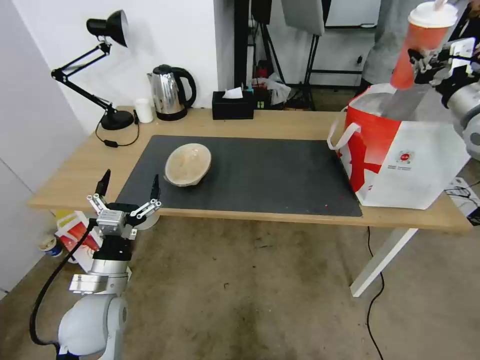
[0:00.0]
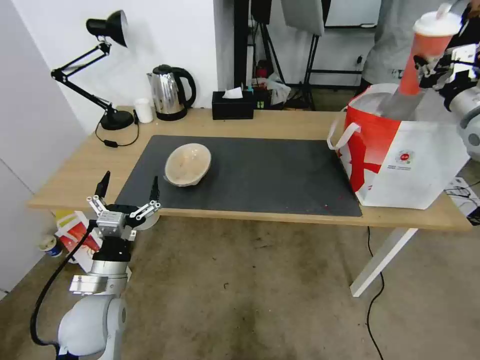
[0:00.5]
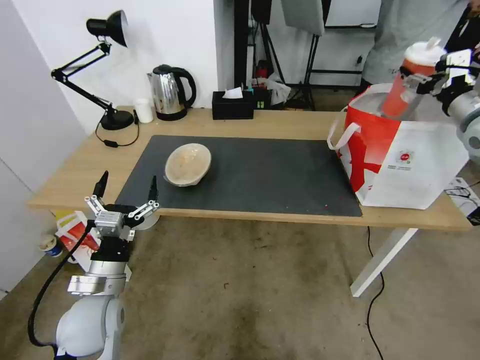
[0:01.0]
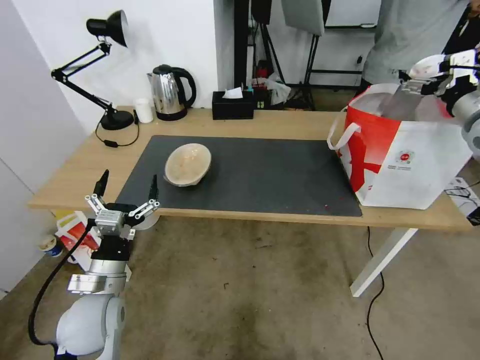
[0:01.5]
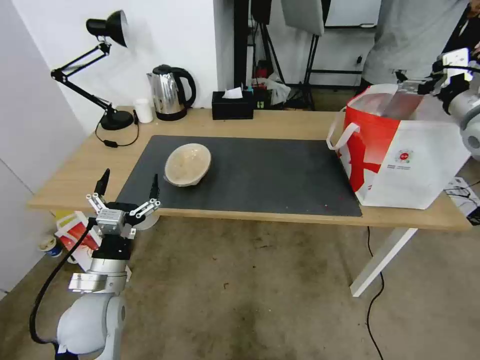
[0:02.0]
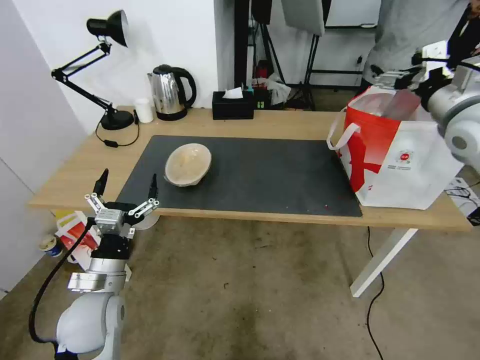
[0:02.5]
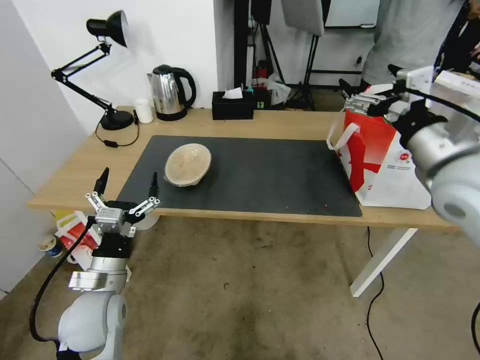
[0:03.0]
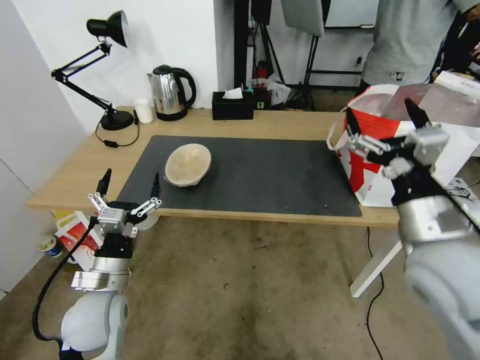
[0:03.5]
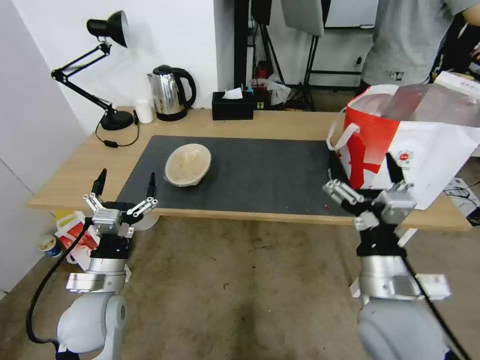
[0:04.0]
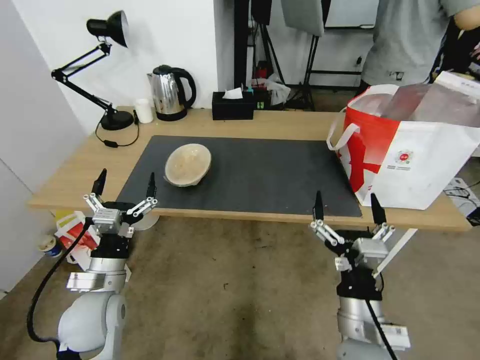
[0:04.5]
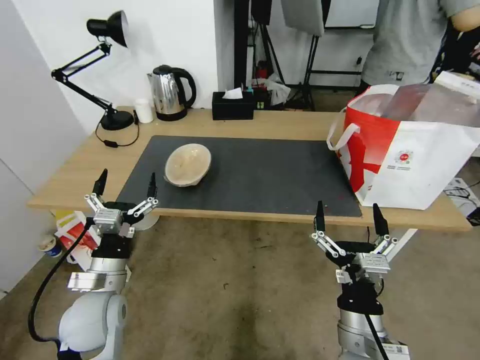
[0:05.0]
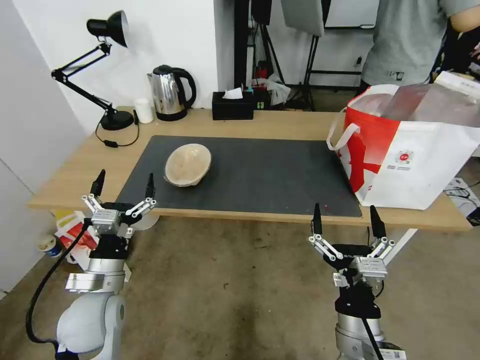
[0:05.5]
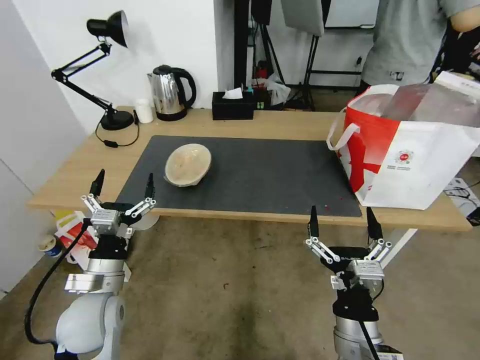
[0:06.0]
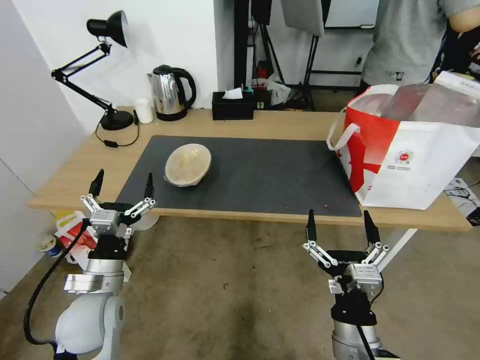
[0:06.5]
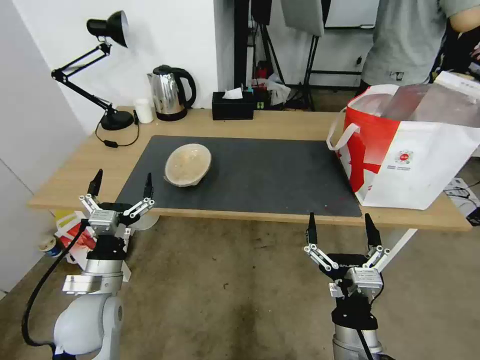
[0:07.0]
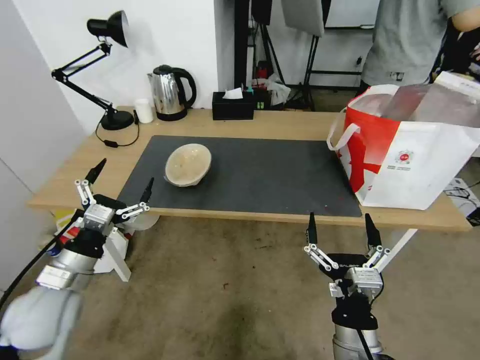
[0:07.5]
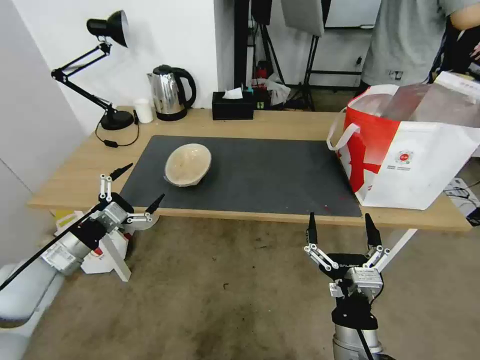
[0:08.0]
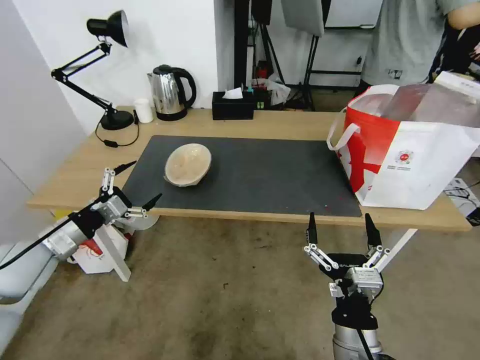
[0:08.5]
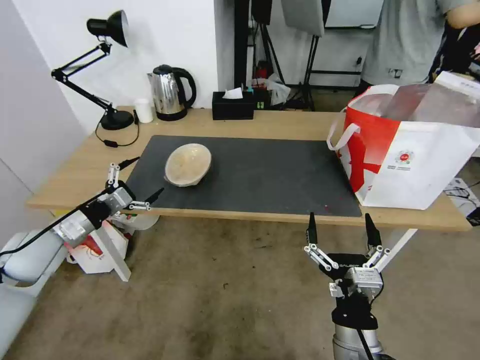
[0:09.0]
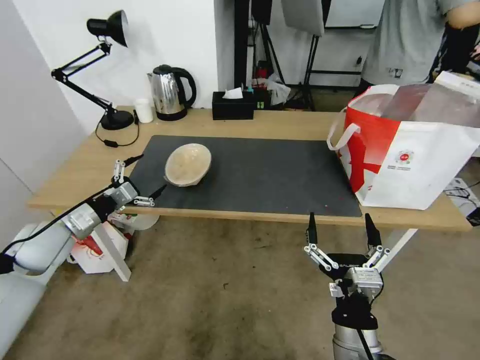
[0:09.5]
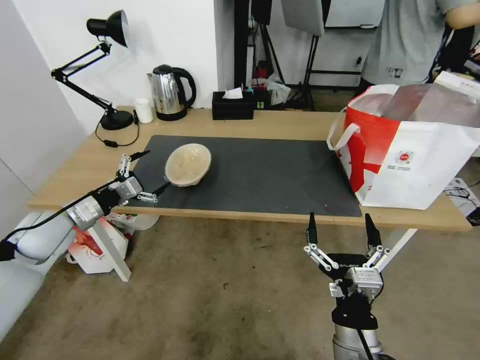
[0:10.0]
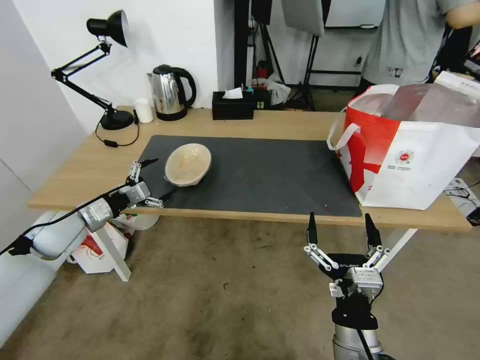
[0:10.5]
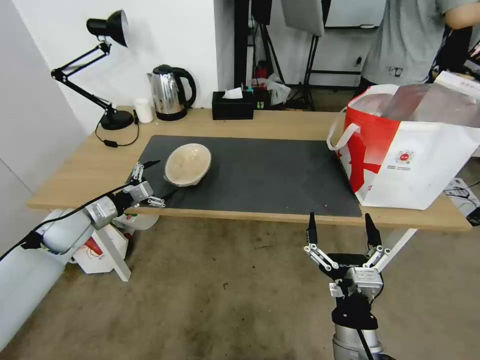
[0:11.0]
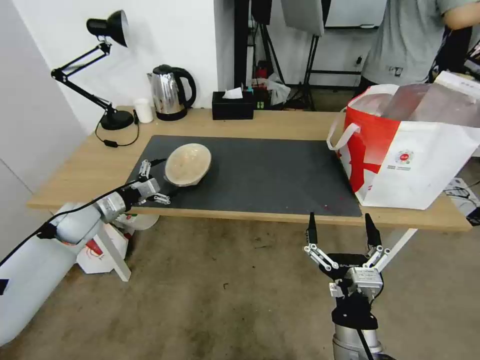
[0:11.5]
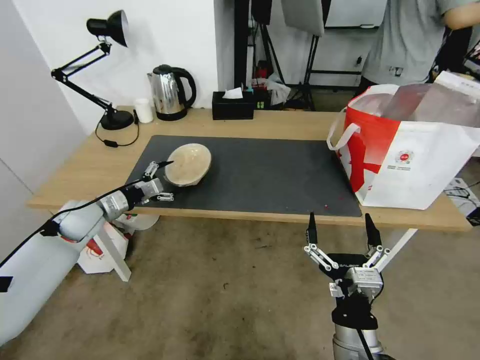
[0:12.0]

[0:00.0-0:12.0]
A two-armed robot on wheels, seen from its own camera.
Task of the whole recording: Pick up the trash from the table and place it into the takeout bag.
0.0 to 2.0 s: The right gripper opens up.
2.0 to 4.0 s: The right gripper goes some 40 cm backward, to the left and downward.
4.0 to 6.0 s: The right gripper moves downward and backward, some 10 cm.
6.0 to 8.0 s: The left gripper shifts about 10 cm to the left and upward.
8.0 to 10.0 s: The left gripper heads forward, covering about 10 cm.
10.0 to 12.0 s: The left gripper moves forward, approximately 5 cm.

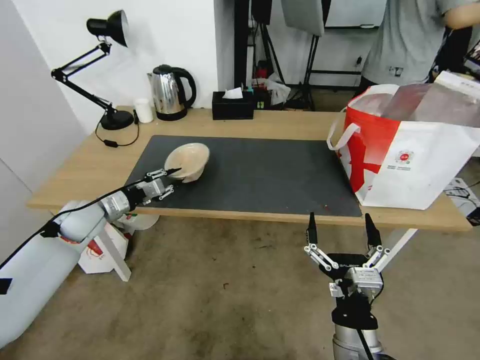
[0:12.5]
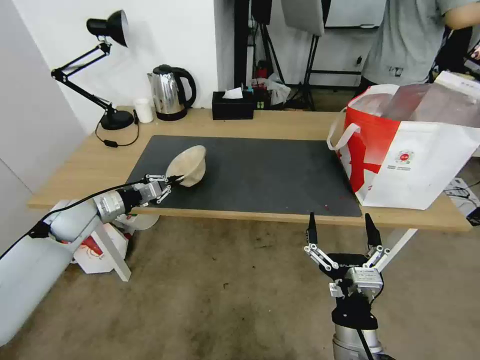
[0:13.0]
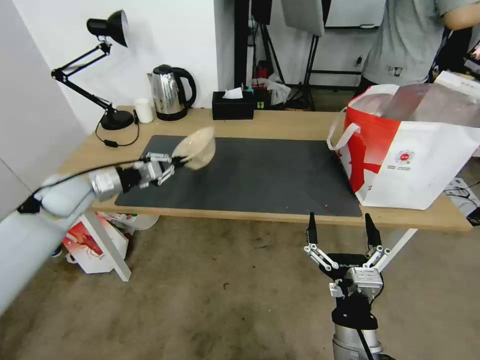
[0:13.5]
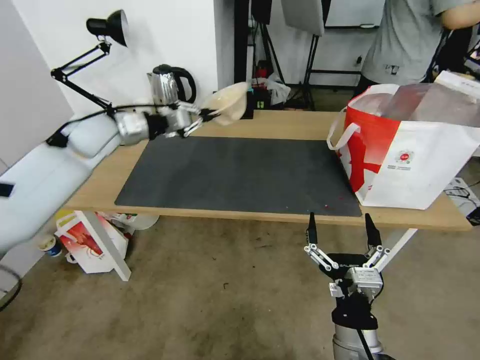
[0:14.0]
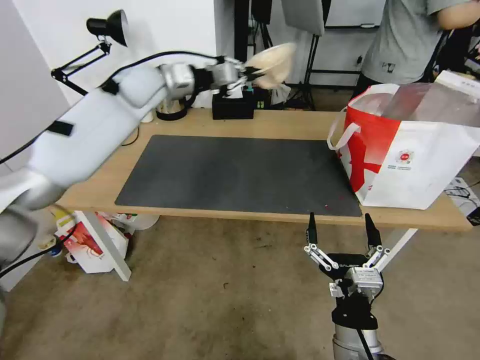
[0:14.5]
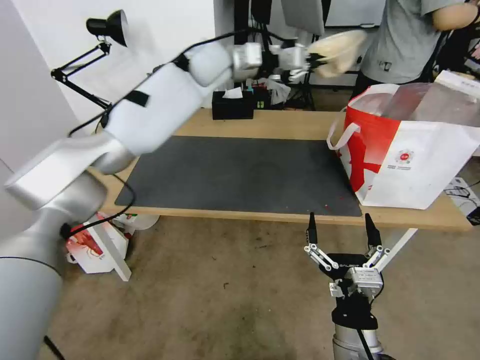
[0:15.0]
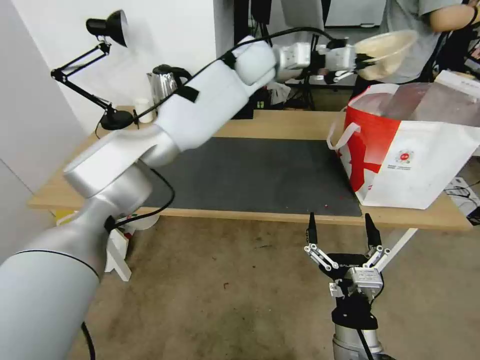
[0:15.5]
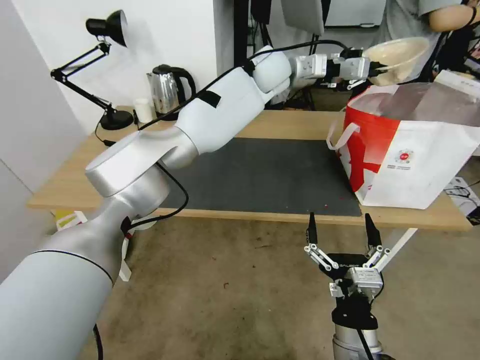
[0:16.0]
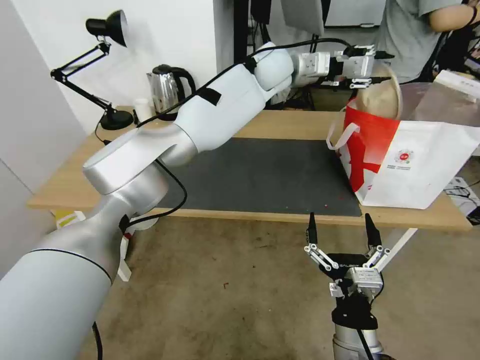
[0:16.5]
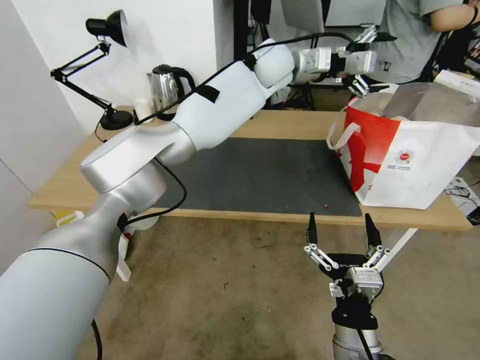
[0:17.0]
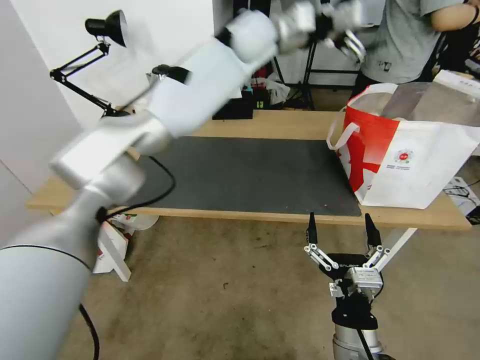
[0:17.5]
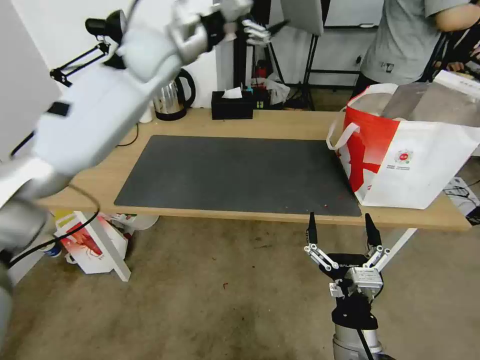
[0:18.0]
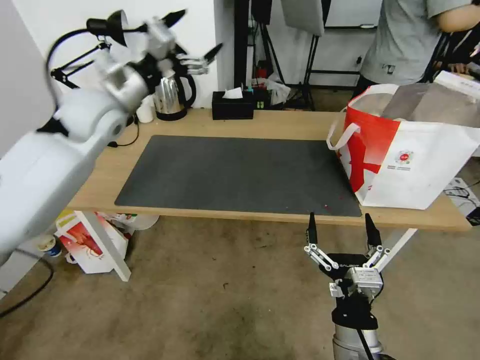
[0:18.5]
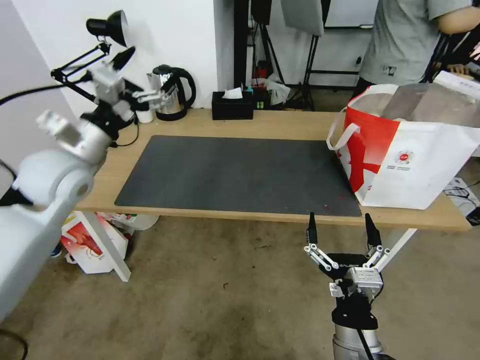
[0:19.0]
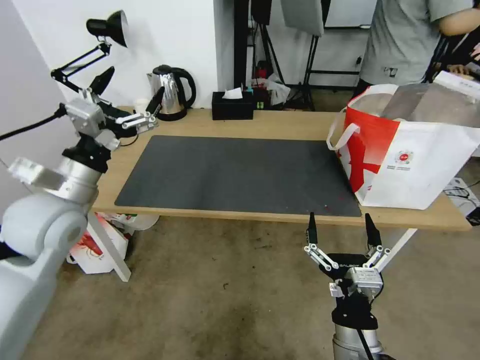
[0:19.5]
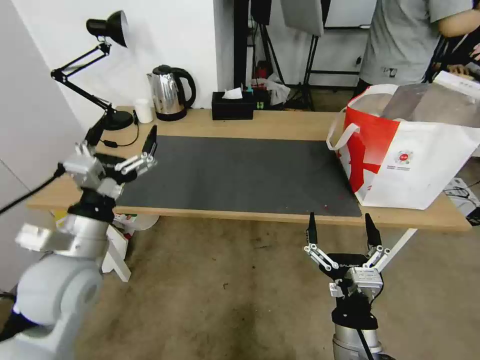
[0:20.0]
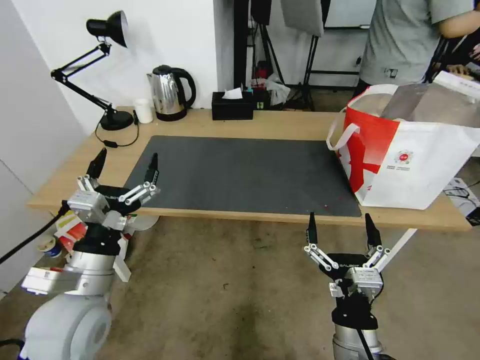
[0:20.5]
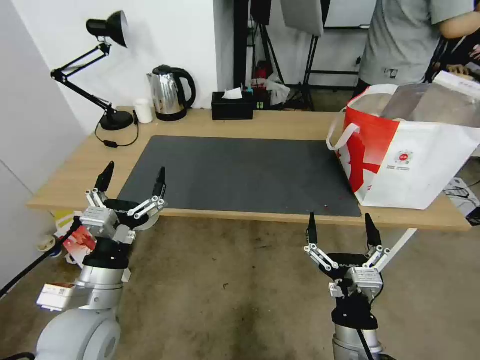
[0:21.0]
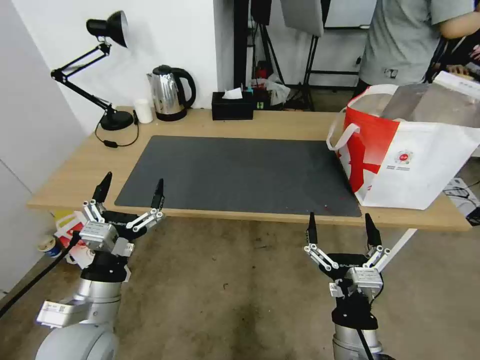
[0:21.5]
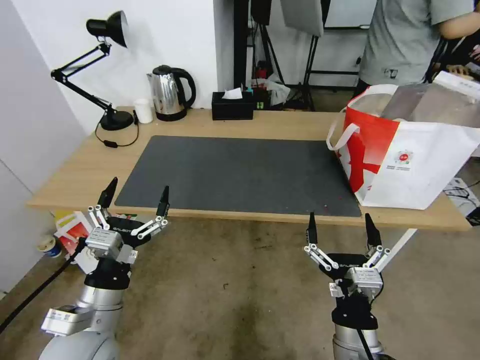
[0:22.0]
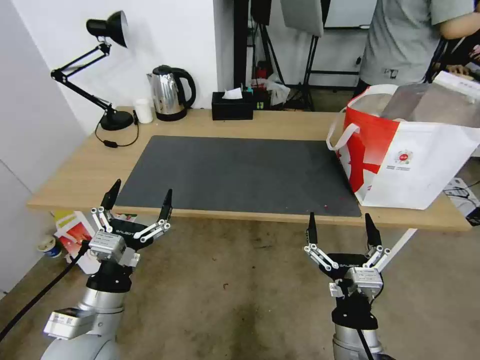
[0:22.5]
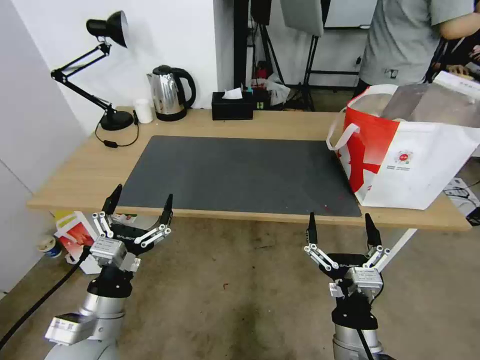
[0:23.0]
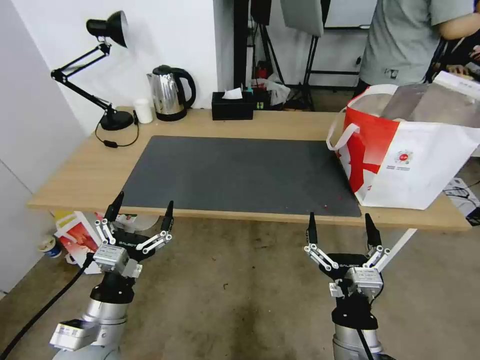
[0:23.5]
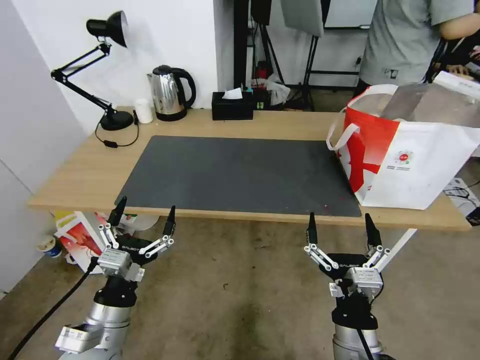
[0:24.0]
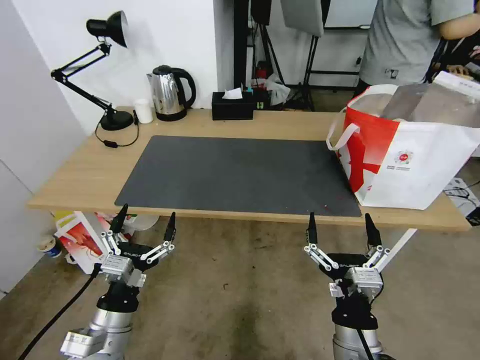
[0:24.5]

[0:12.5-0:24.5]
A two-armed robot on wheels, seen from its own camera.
Task of the whole recording: Pick up the trash from the table and place it into the takeout bag.
12.5 to 14.5 s: The left gripper shifts approximately 35 cm upward, to the right and forward.
14.5 to 16.5 s: The left gripper moves to the right, approximately 25 cm, and opens up.
16.5 to 18.5 s: The left gripper moves to the left and backward, approximately 35 cm, and opens its fingers.
18.5 to 20.5 s: The left gripper travels backward and downward by some 35 cm.
20.5 to 22.5 s: The left gripper heads downward, covering about 5 cm.
22.5 to 24.5 s: The left gripper moves approximately 5 cm.

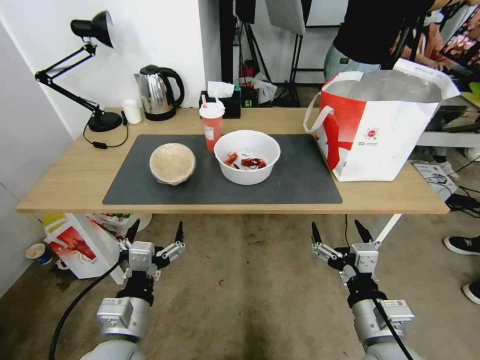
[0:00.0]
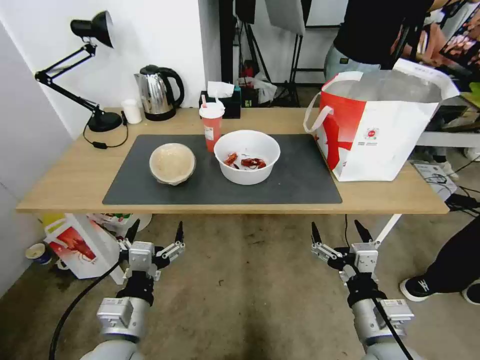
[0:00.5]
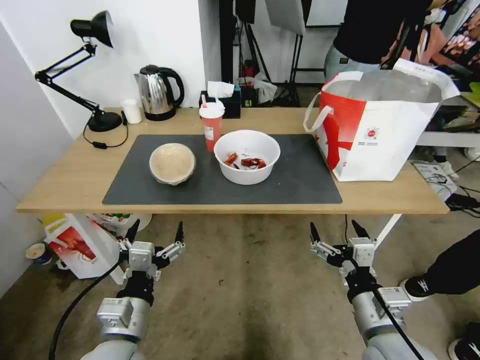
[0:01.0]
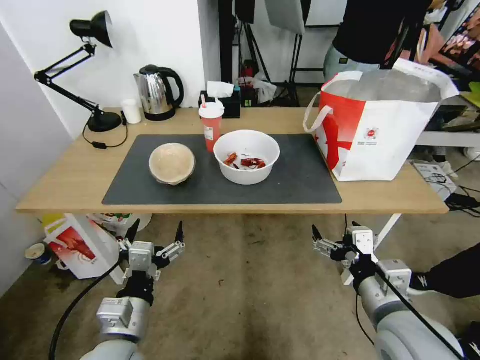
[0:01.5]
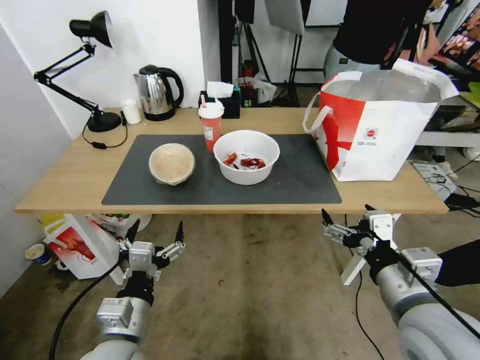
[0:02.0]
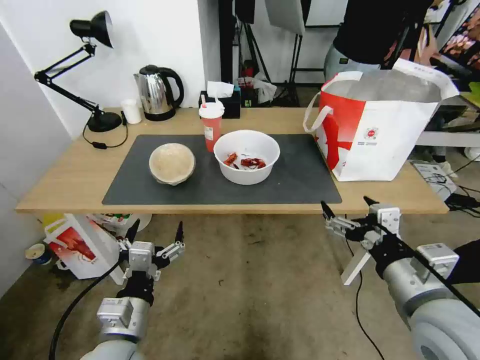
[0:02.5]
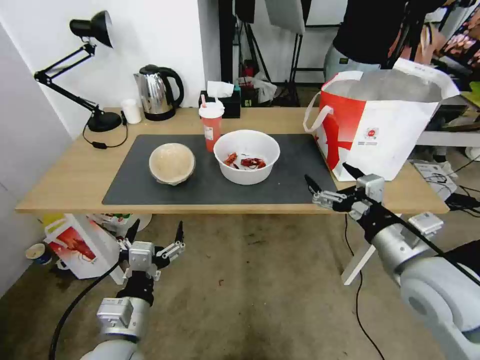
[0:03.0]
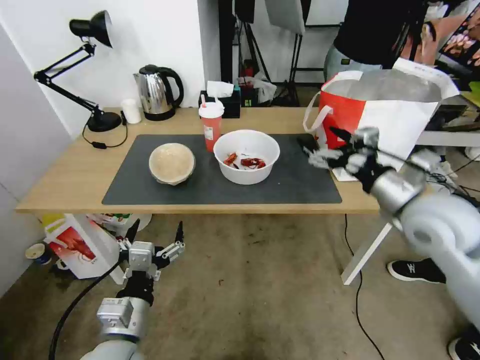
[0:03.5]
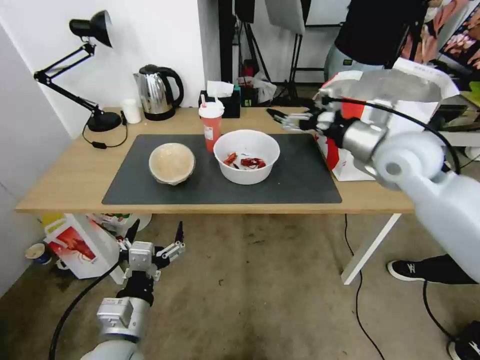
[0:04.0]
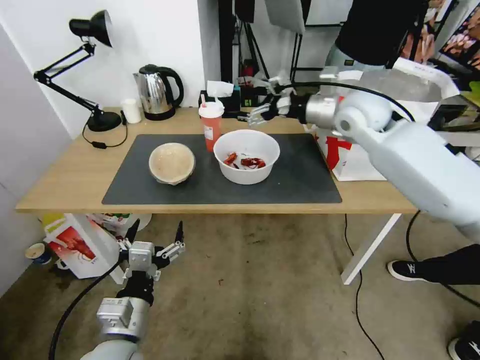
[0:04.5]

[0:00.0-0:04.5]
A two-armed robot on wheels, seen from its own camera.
Task of the whole recording: Pick up the trash from the table and place it into the takeout bag.
2.0 to 4.5 s: The right gripper shifts roughly 35 cm forward.
